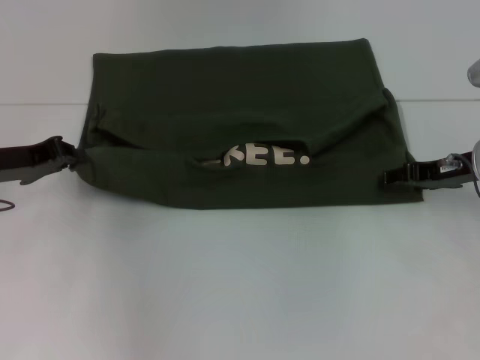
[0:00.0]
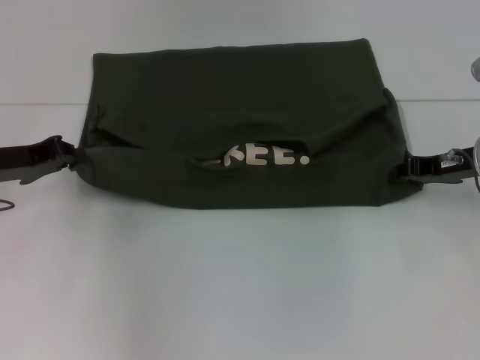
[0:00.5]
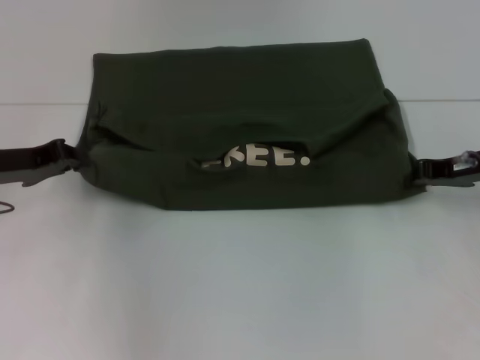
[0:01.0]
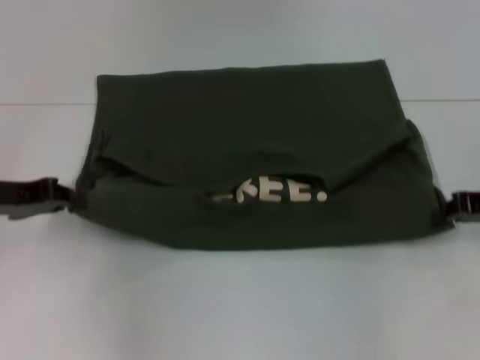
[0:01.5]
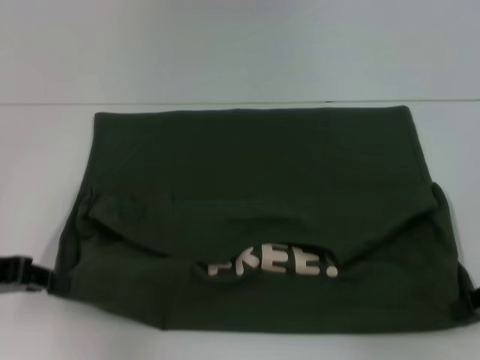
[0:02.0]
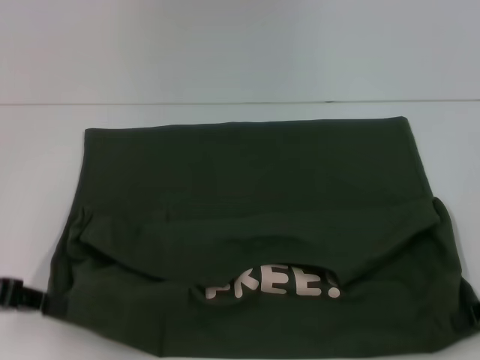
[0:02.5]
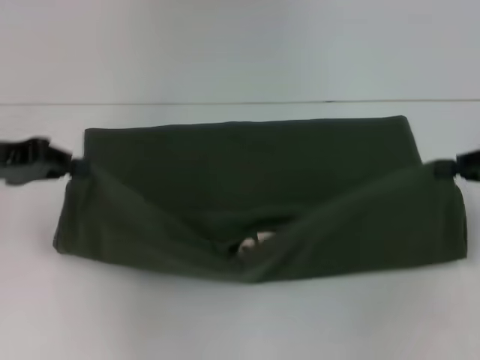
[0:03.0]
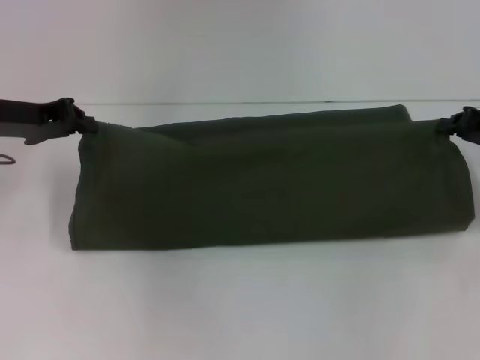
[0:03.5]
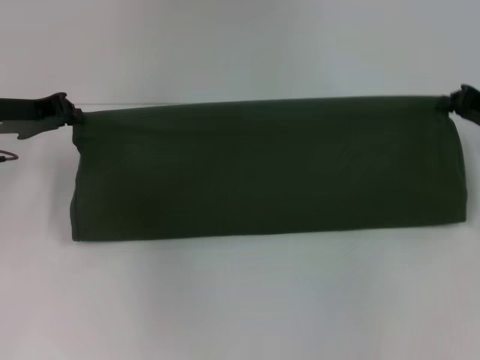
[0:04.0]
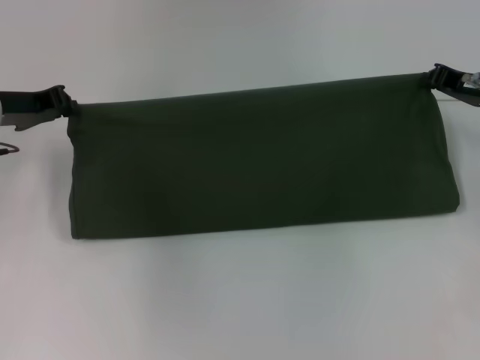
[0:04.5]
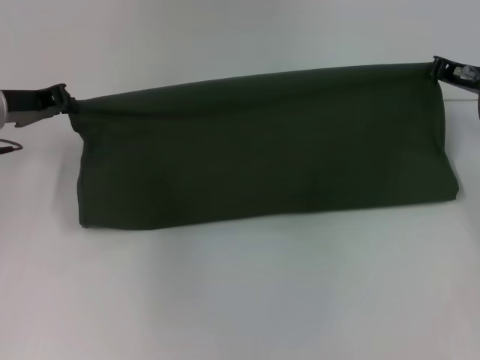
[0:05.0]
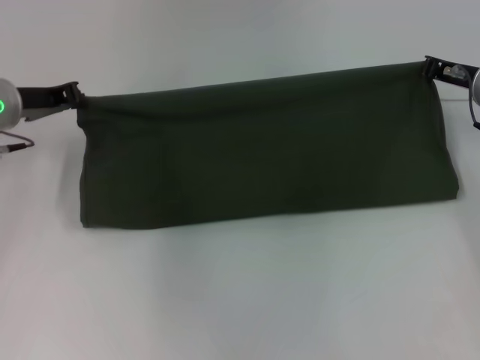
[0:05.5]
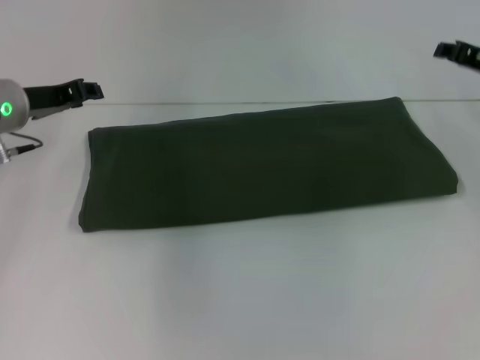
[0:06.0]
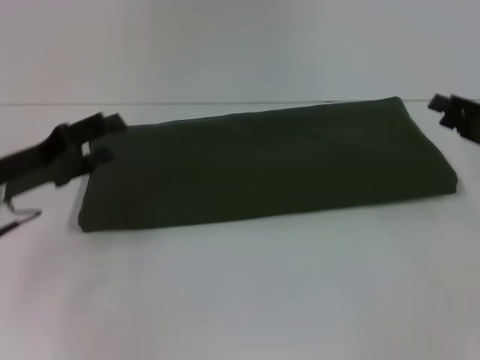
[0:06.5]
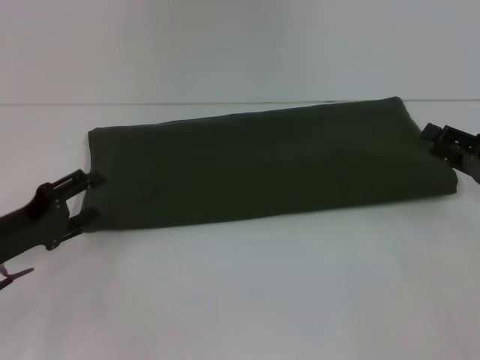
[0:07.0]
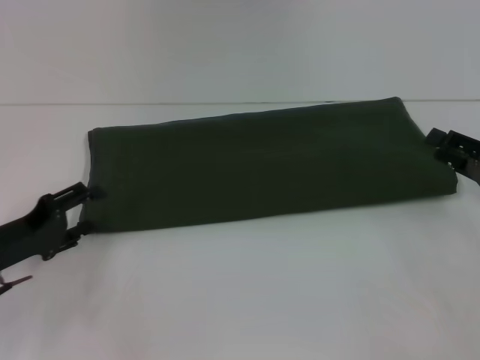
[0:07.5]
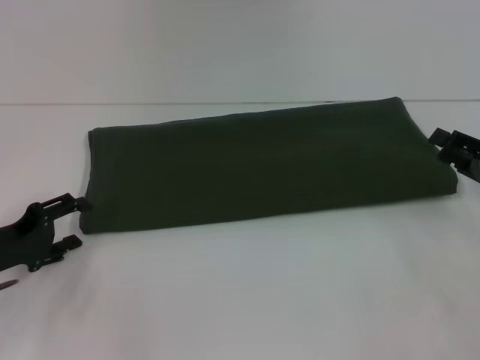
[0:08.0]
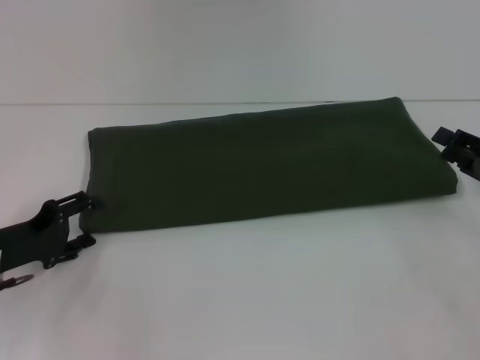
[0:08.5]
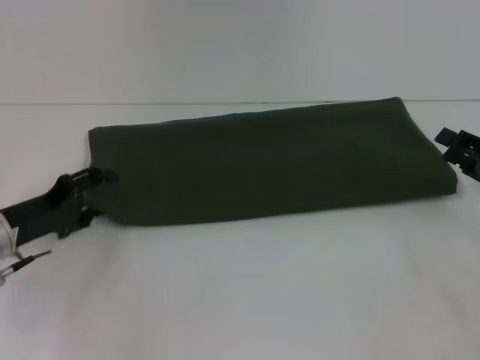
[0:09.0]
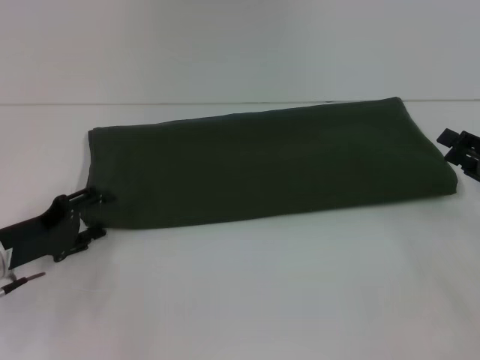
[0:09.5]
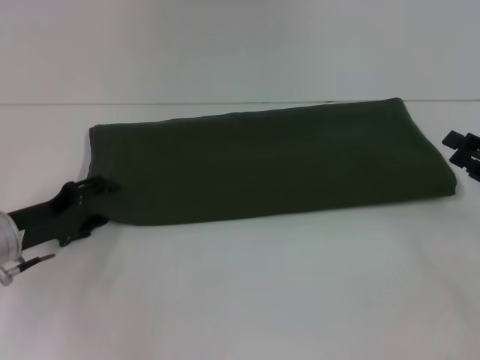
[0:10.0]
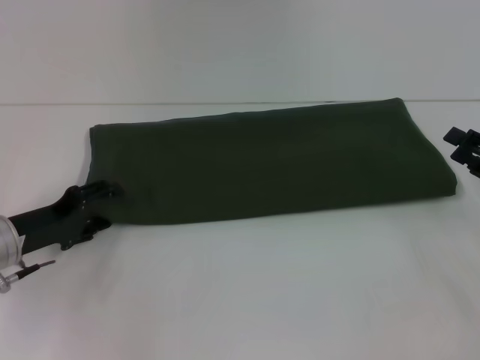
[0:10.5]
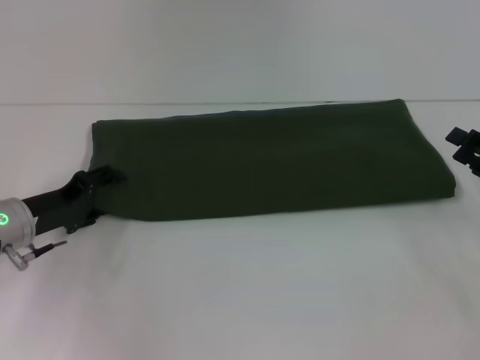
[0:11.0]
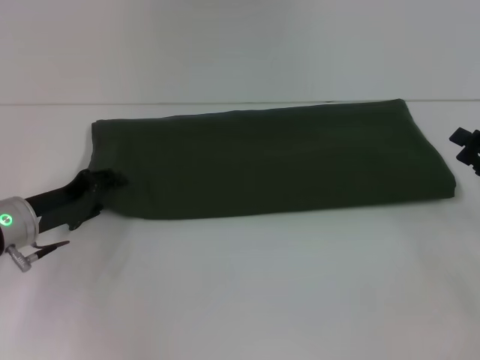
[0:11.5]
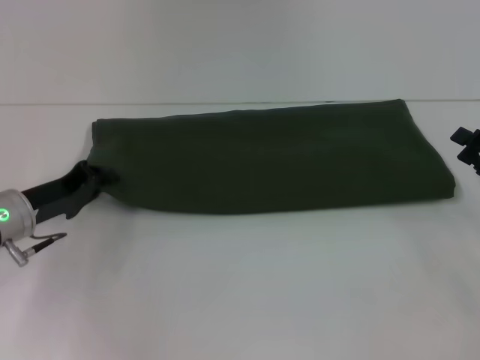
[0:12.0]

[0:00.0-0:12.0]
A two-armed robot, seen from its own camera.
Step, 0:00.0 to 0:02.5: Pull the clothes with your left hand.
Step, 0:00.0 to 0:02.5: Pull the clothes with your right hand.
Step, 0:03.0 to 0:06.0: Fold the clothes with your right hand.
0:00.0 to 0:02.0: The right gripper travels backward and to the right by roughly 15 cm, and closes its fingers. The left gripper is displaced backward by about 10 cm.
0:02.0 to 0:04.0: The grippers both shift forward by roughly 10 cm.
0:04.0 to 0:06.0: The right gripper ends up roughly 5 cm from where it was.
0:06.0 to 0:08.0: The two grippers go about 15 cm backward and downward. The left gripper opens.
0:08.0 to 0:10.0: The grippers move only a little.
0:10.0 to 0:12.0: The left gripper closes.

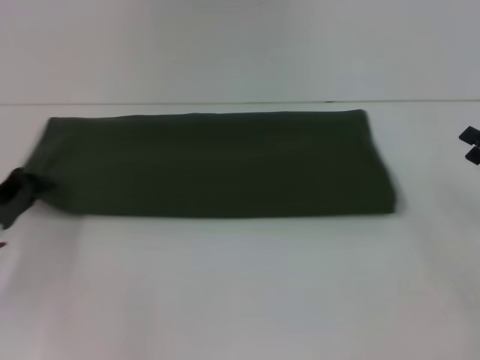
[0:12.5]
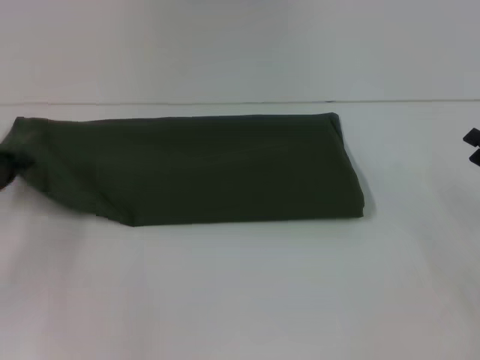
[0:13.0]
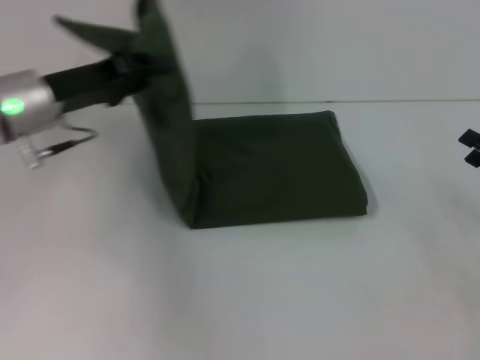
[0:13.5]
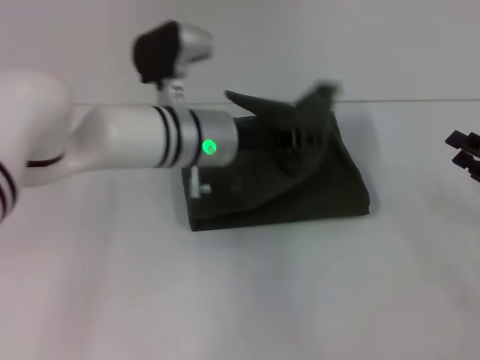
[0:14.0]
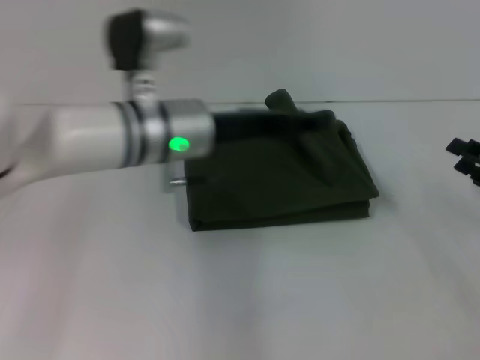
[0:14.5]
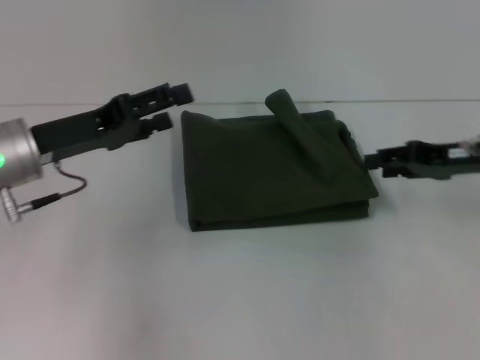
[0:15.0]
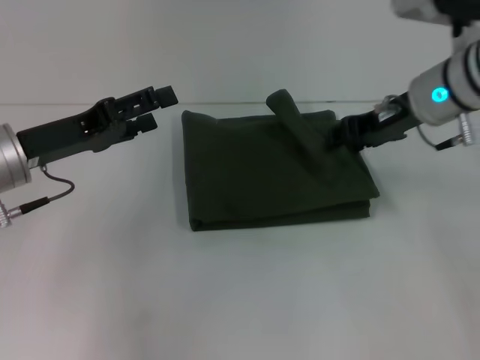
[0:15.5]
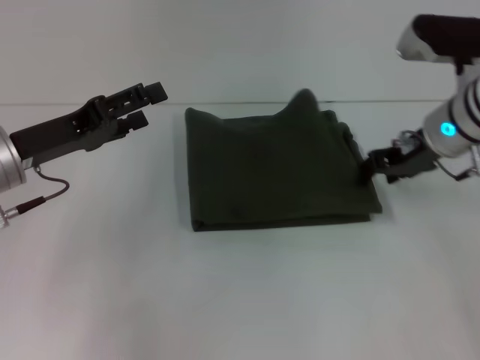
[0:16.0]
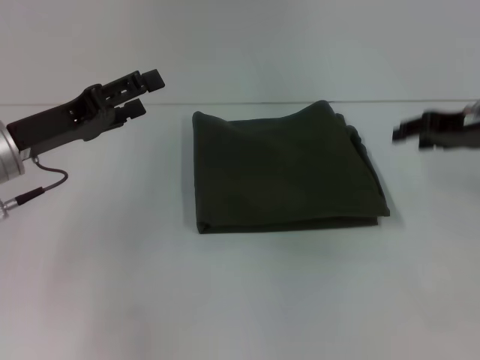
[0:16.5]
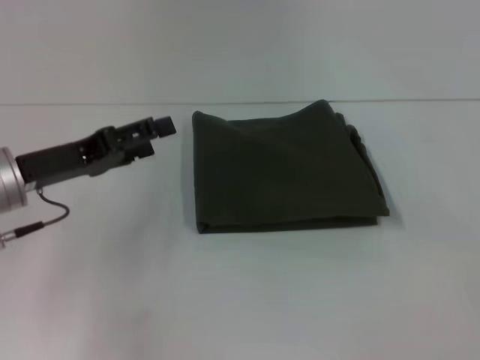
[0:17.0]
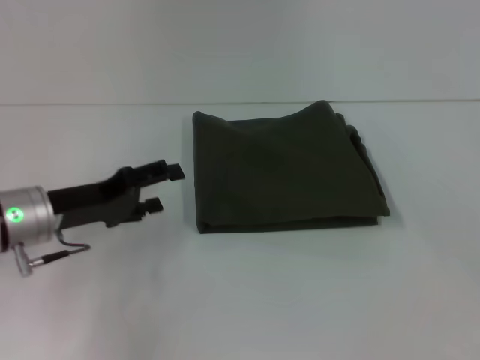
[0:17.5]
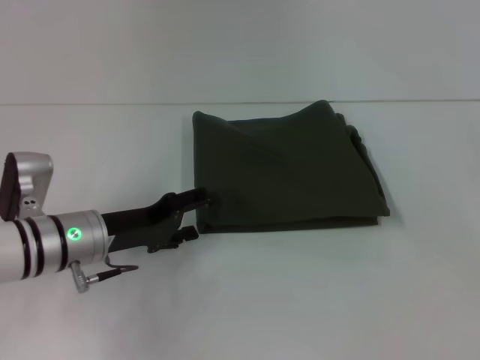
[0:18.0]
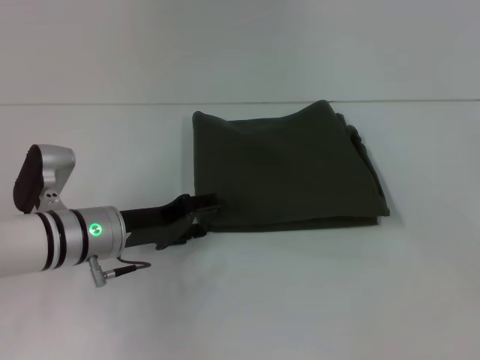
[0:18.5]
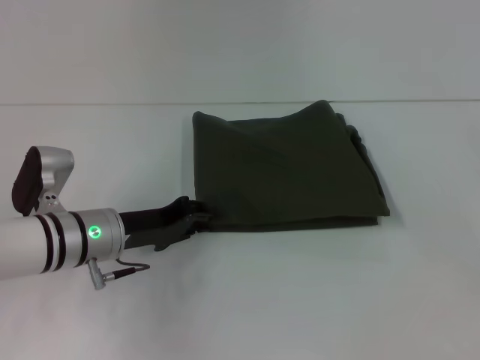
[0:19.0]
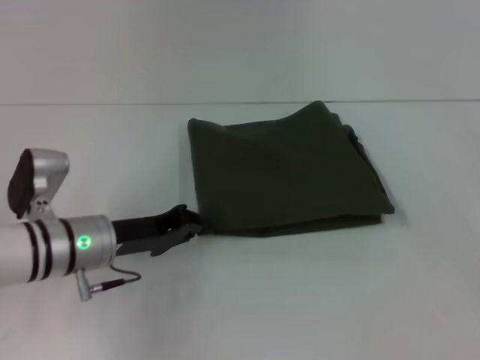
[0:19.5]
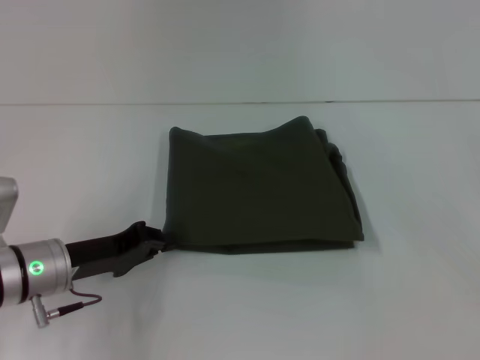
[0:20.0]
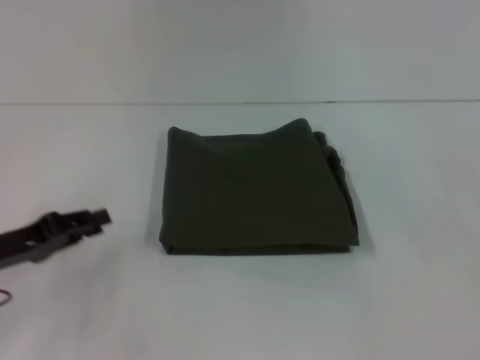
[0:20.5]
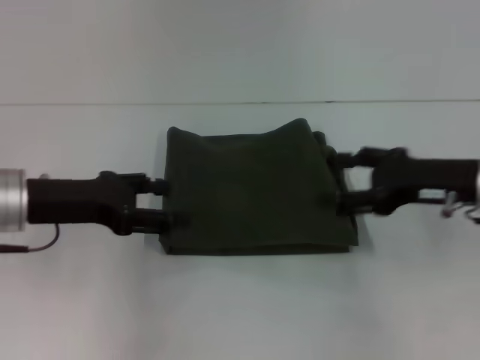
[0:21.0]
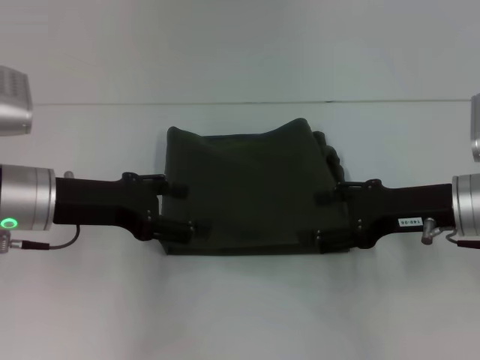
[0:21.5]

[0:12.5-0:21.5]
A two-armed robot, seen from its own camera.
Step, 0:12.5 to 0:16.5: Fold the clothes with your left hand.
0:12.5 to 0:14.5: The left gripper moves to the right and upward, roughly 25 cm.
0:14.5 to 0:17.0: The left gripper is displaced to the left by about 15 cm, and opens; the right gripper shifts approximately 10 cm upward, and moves roughly 15 cm to the left and comes back.
0:17.0 to 0:19.5: The left gripper goes approximately 10 cm downward and to the right, and closes.
0:19.5 to 0:21.5: The left gripper shifts approximately 10 cm upward, goes to the left and returns, roughly 10 cm each way, and opens its fingers. Meanwhile the right gripper goes about 20 cm to the left.
